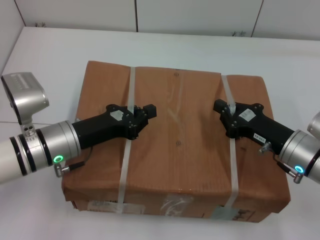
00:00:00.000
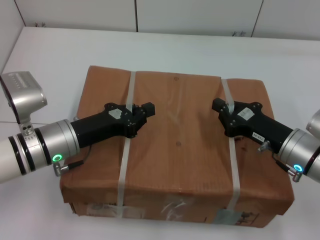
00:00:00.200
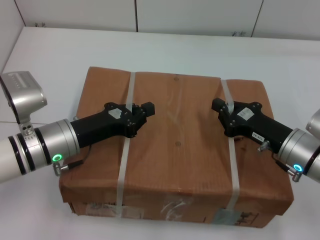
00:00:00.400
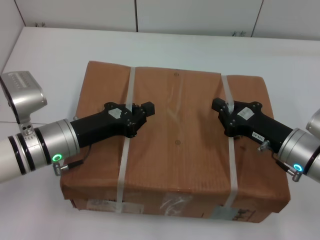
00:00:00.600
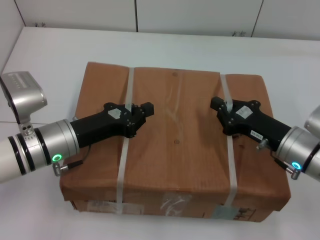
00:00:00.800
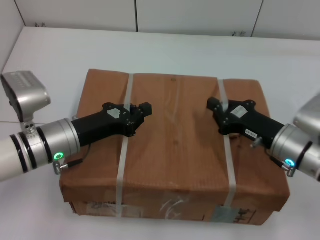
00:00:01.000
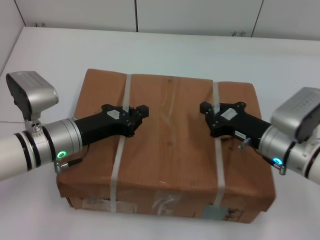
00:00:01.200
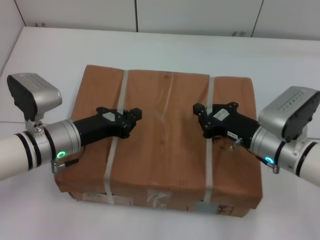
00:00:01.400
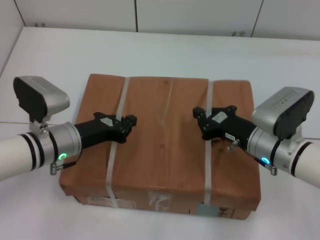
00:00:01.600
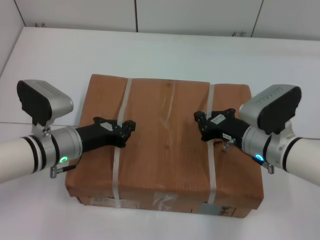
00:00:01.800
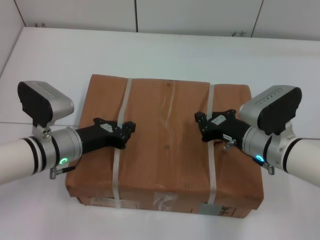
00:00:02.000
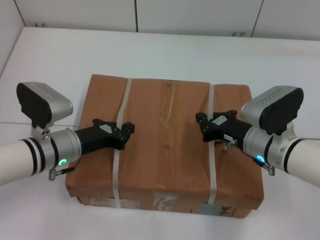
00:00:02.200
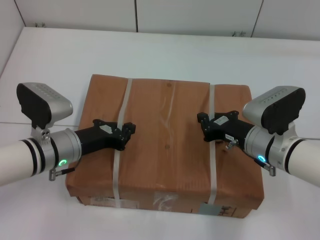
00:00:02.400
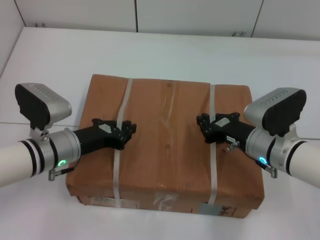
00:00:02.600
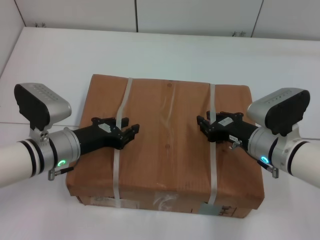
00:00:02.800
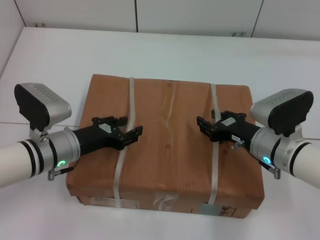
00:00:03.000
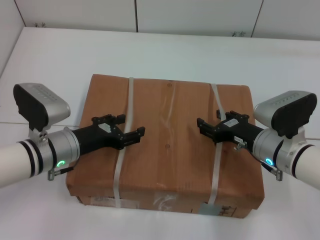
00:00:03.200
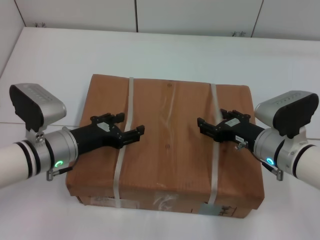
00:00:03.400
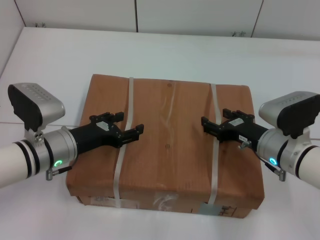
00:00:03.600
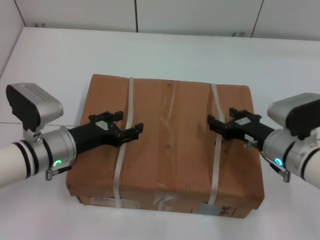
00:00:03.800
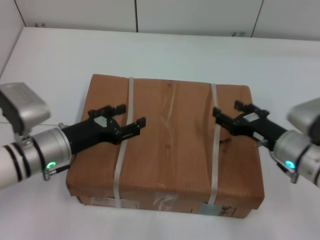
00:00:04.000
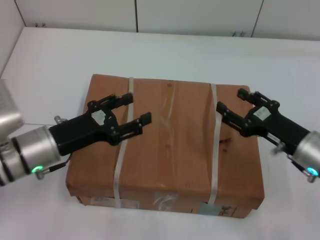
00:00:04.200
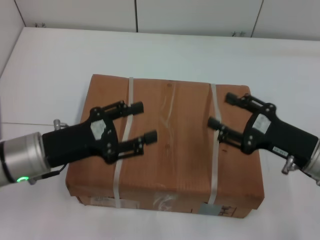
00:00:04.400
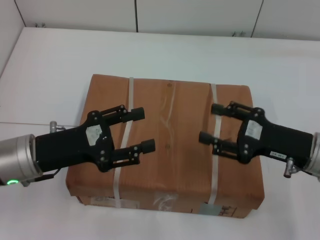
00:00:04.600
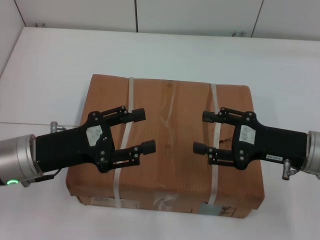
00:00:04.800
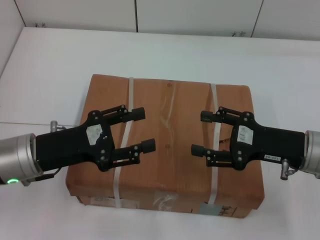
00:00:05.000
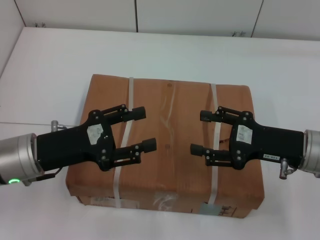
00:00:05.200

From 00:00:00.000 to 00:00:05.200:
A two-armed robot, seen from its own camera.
Task of the whole recording: place the box on the table with both arms.
Step, from 00:00:00.000 to 00:00:01.800: Place the box on the table with left gripper.
Step, from 00:00:00.000 to 00:00:01.800: Place the box on the table with right gripper.
Step, from 00:00:02.000 to 00:00:03.400: Loosen the box on the table with left gripper.
Step, from 00:00:02.000 to 00:00:03.400: Loosen the box on the table with right gripper.
From 00:00:00.000 to 00:00:01.800: The right gripper heads to the left, covering approximately 5 cm.
From 00:00:01.800 to 00:00:03.400: The left gripper opens up. Meanwhile the right gripper opens its fingers.
From 00:00:03.400 to 00:00:05.200: The right gripper goes about 5 cm upward; the left gripper heads upward and backward, covering roughly 10 cm.
